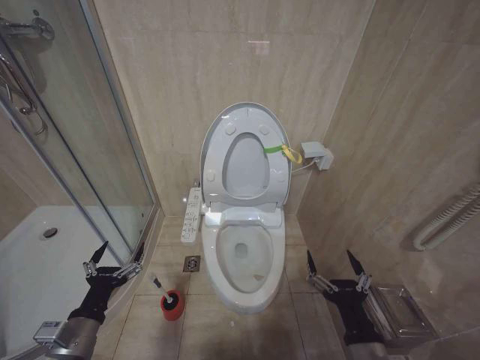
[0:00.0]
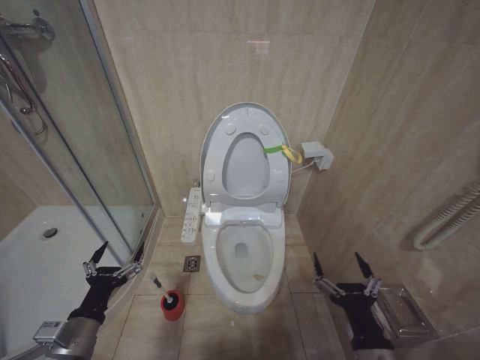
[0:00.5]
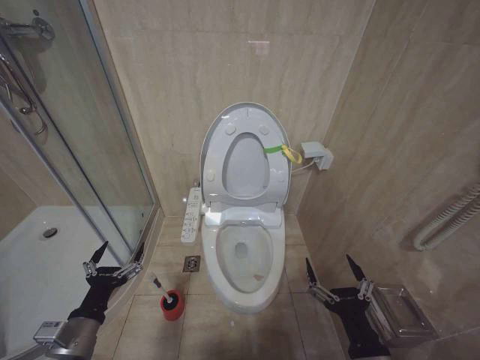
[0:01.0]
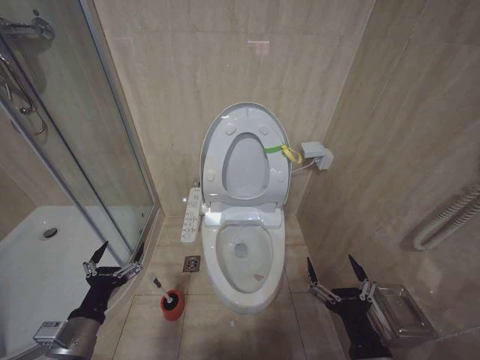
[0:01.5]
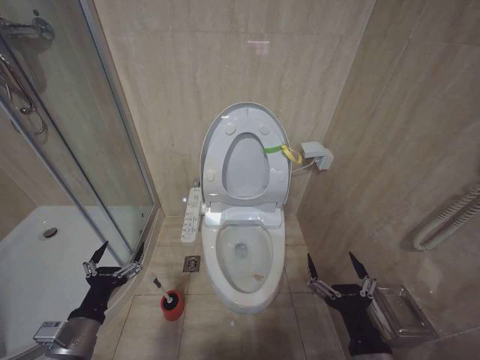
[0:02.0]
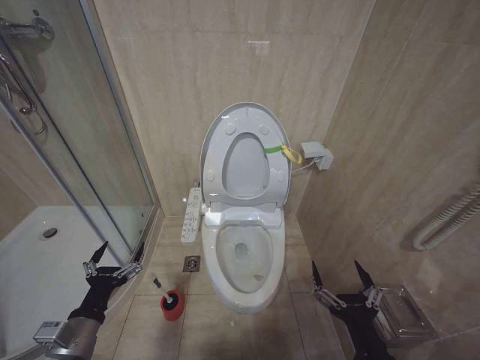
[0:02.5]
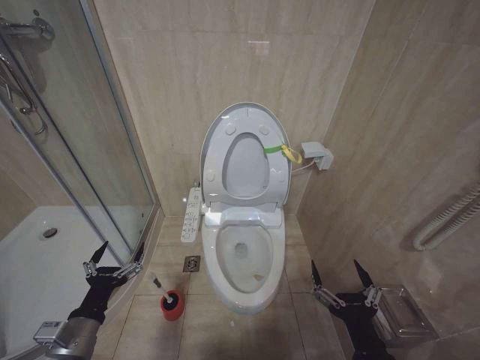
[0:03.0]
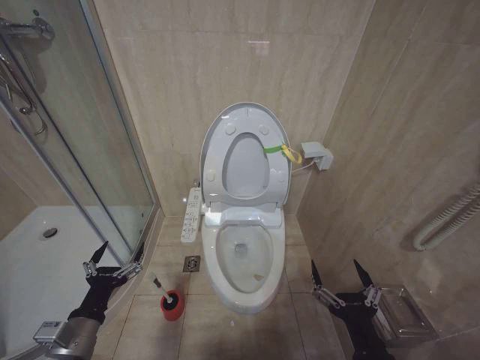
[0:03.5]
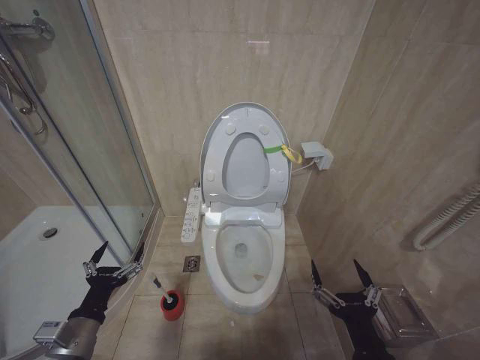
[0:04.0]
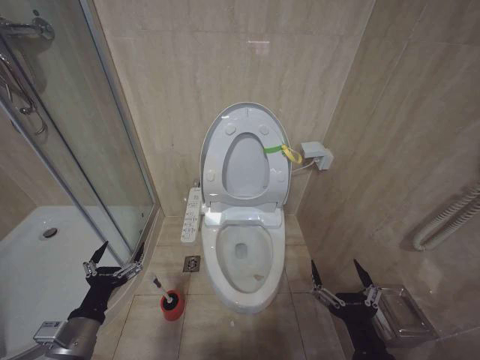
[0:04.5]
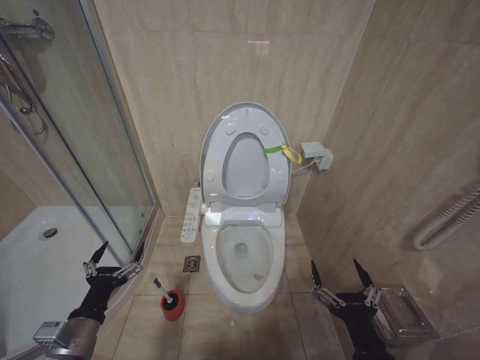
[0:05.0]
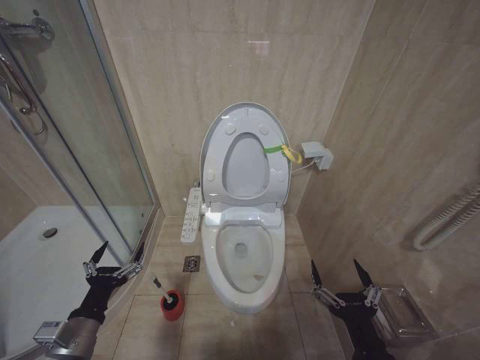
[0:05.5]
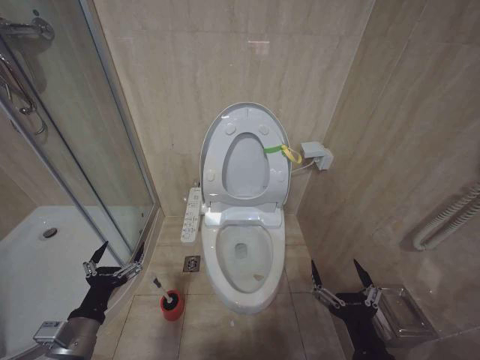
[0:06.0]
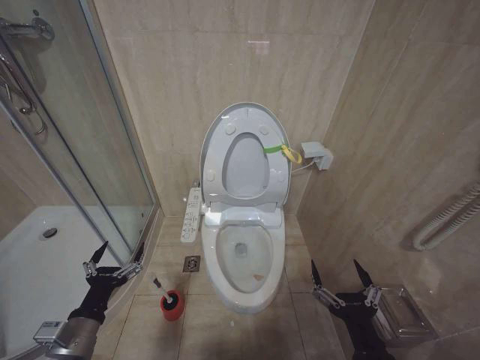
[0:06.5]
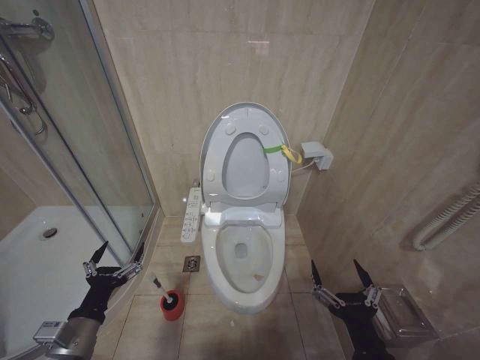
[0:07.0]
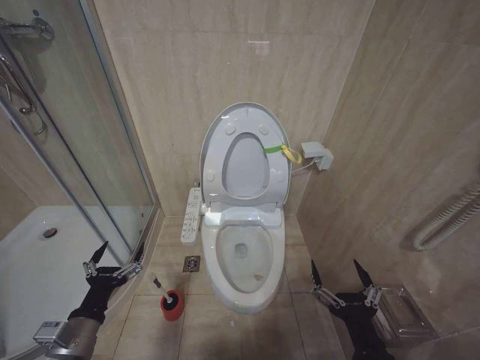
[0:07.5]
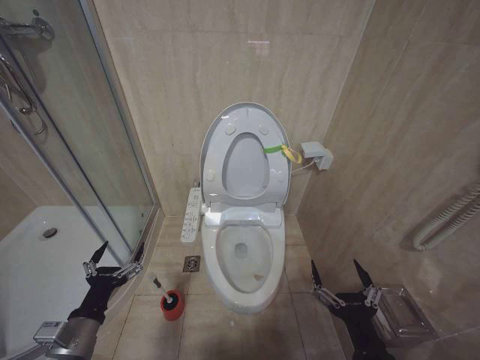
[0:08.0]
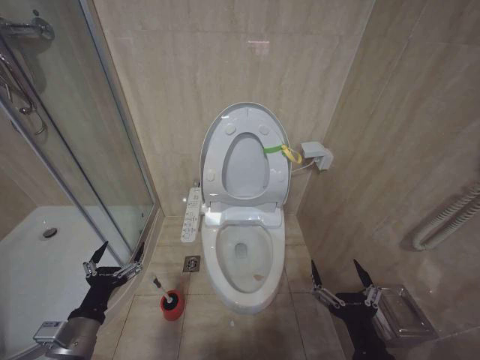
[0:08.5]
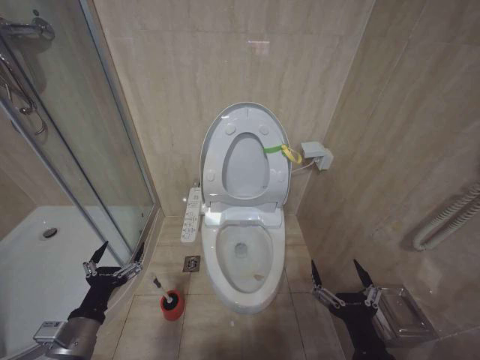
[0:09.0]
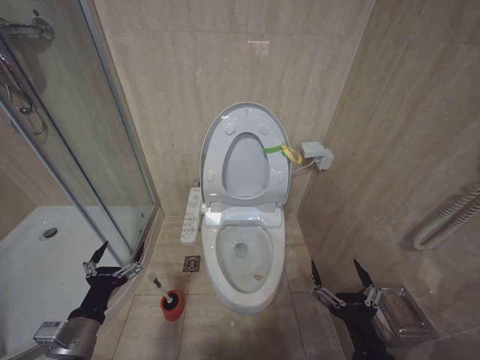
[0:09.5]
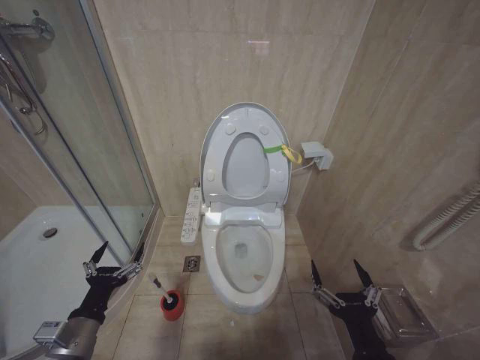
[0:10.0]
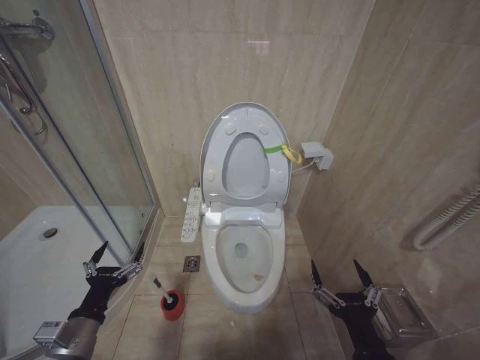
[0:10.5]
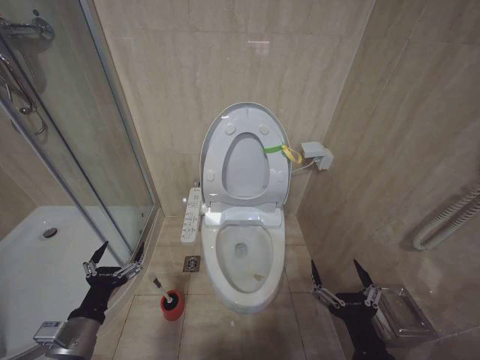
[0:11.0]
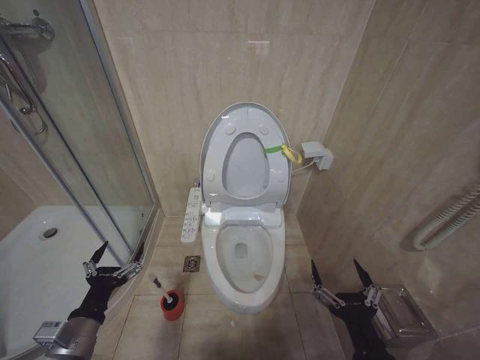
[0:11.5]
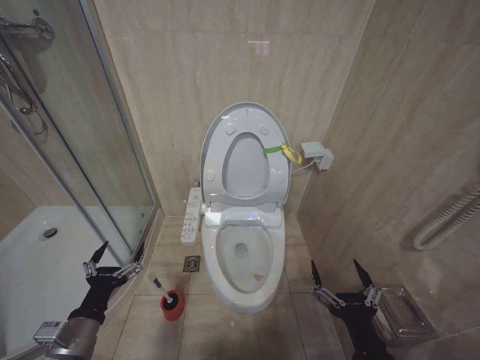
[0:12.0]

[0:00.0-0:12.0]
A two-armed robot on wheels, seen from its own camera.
Task of the whole recording: Open the toilet lid, clean the toilet bowl with a toilet brush, close the toilet lid, and flush.
0:04.0 to 0:12.0: Both grippers stay put.

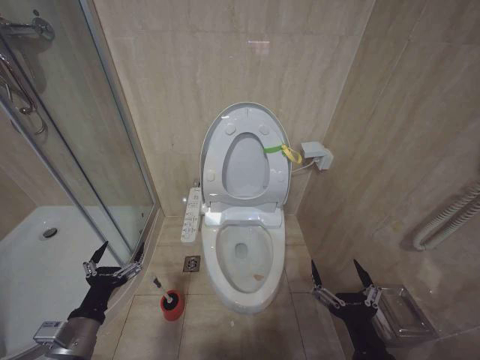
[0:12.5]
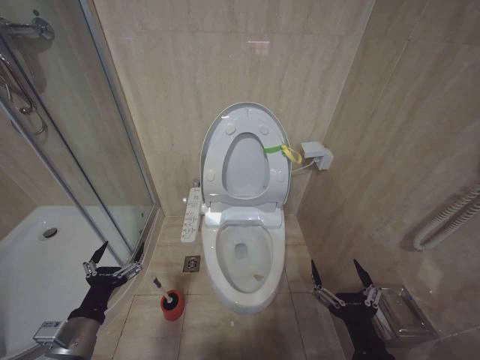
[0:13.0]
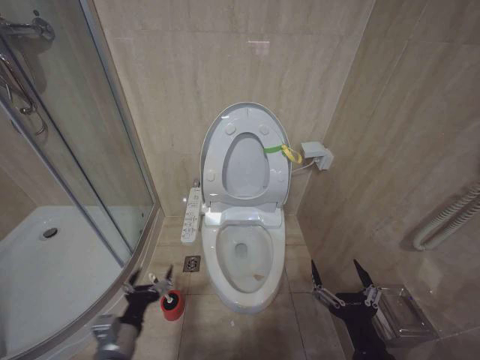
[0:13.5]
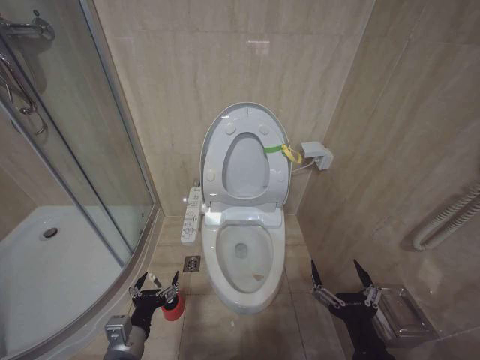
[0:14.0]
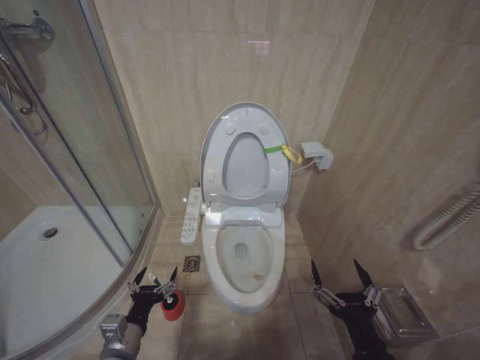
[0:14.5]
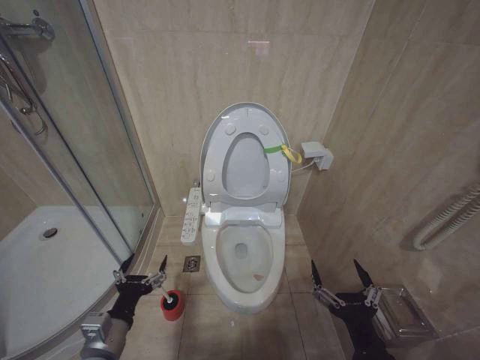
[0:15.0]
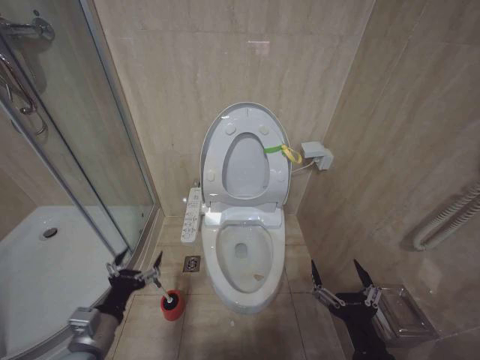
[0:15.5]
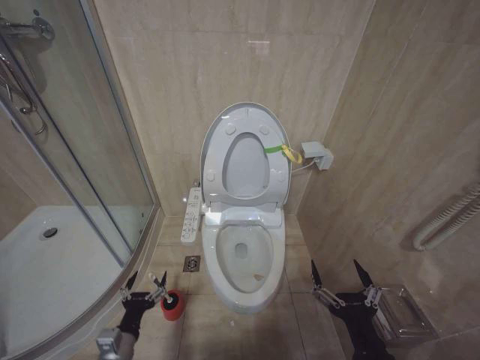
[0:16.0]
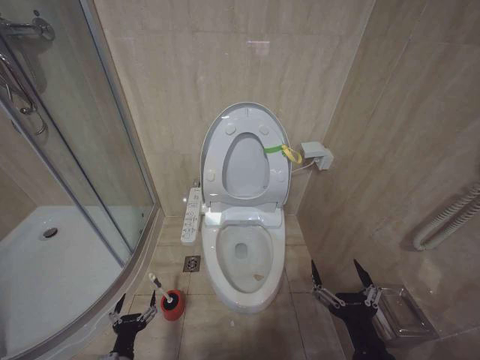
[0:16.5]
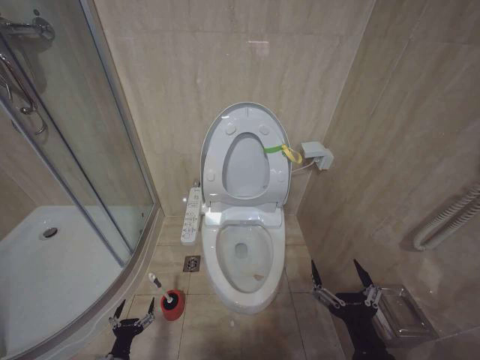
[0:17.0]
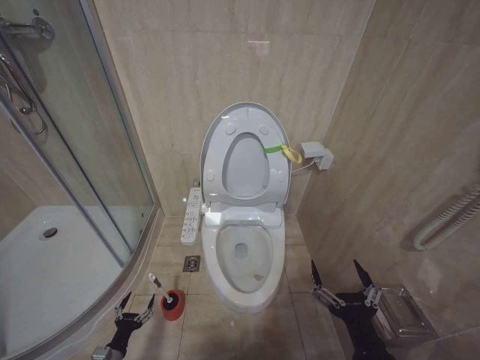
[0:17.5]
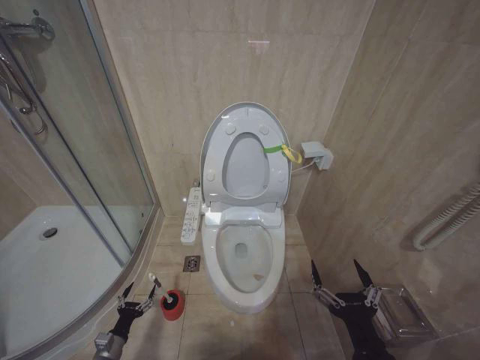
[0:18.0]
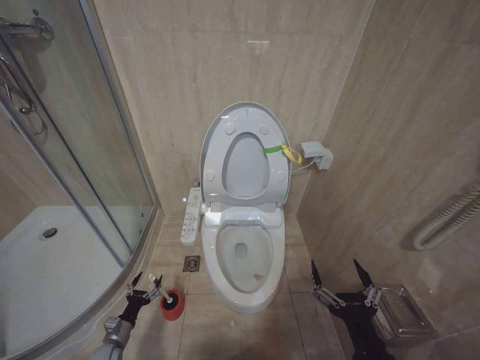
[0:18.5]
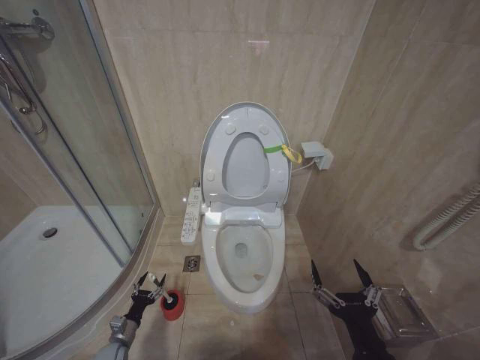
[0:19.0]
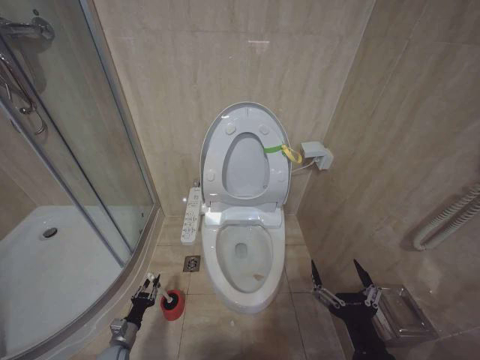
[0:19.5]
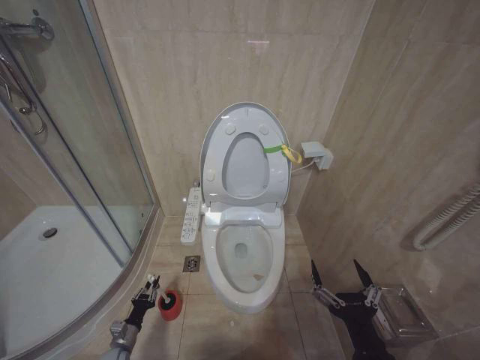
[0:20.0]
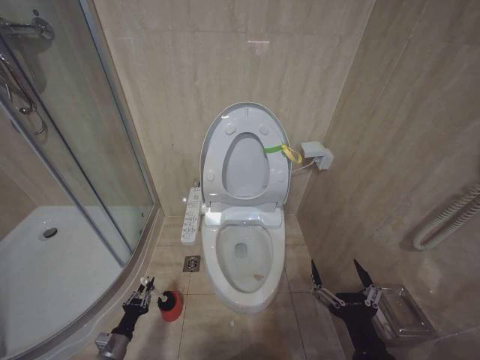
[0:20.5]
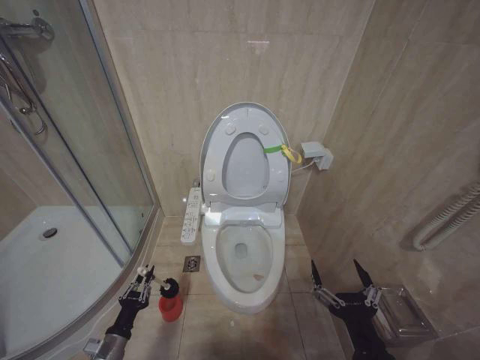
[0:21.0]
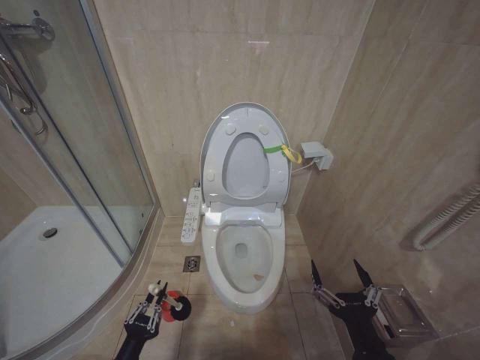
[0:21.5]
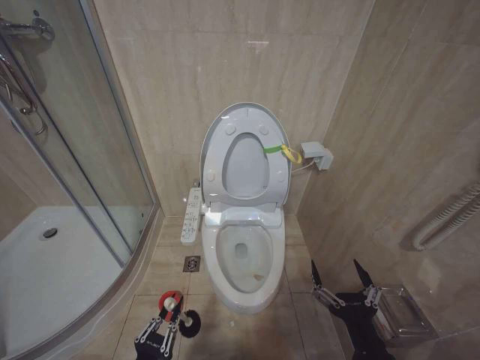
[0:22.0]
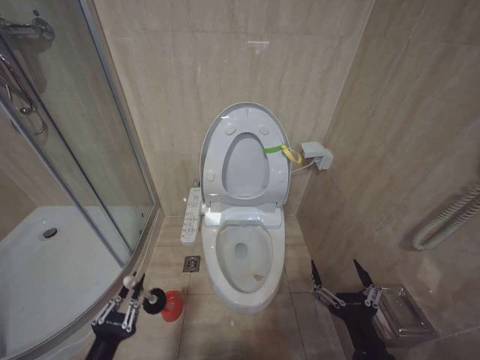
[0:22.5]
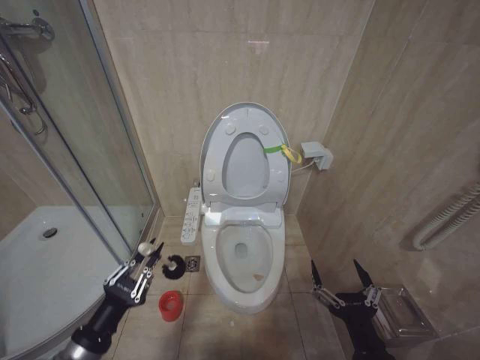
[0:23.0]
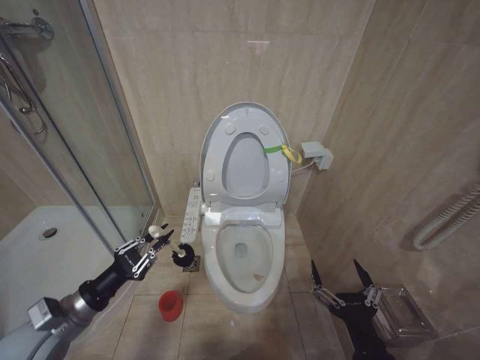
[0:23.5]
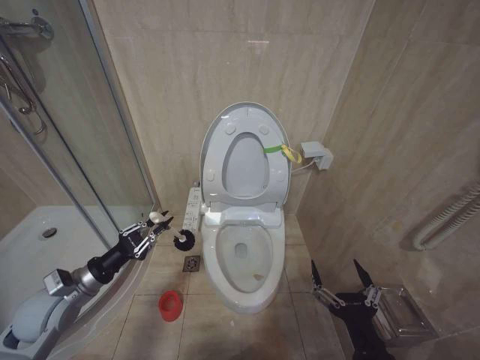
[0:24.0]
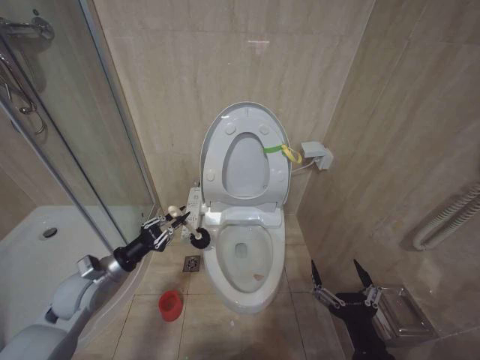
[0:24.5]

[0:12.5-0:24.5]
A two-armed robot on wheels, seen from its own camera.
Task of the whole recording: Open the toilet lid, clean the toilet bowl with a toilet brush, close the toilet lid, and flush.
0:12.5 to 0:14.5: The left gripper heads to the right, covering some 5 cm.
0:14.5 to 0:16.5: The left gripper goes about 10 cm downward.
0:16.5 to 0:18.5: The left gripper shifts about 20 cm downward, forward and to the left.
0:18.5 to 0:20.5: The left gripper closes up.
0:20.5 to 0:22.5: The left gripper shifts roughly 25 cm upward and backward.
0:22.5 to 0:24.5: The left gripper moves forward, roughly 25 cm.

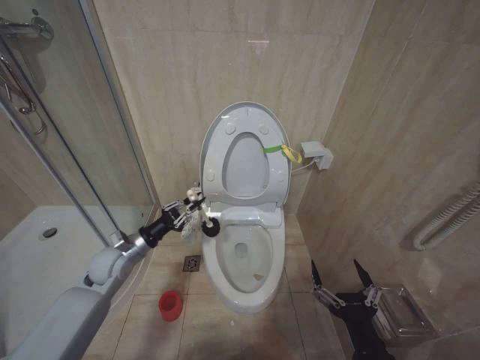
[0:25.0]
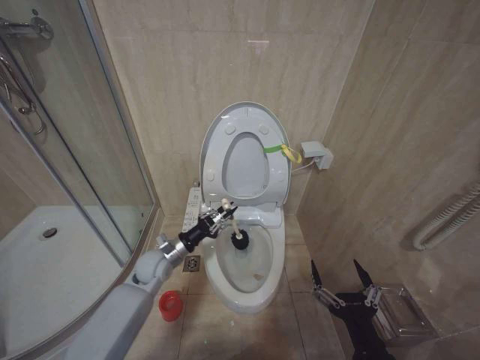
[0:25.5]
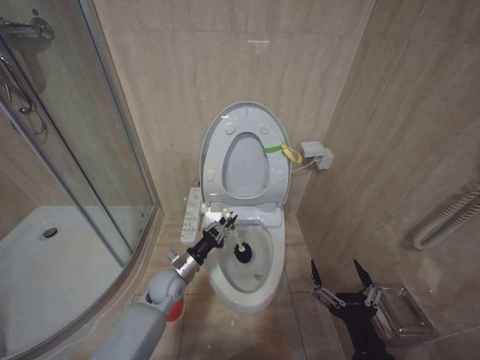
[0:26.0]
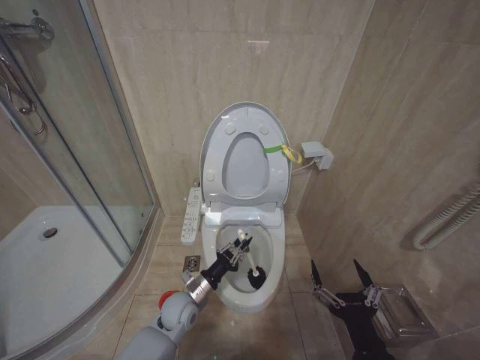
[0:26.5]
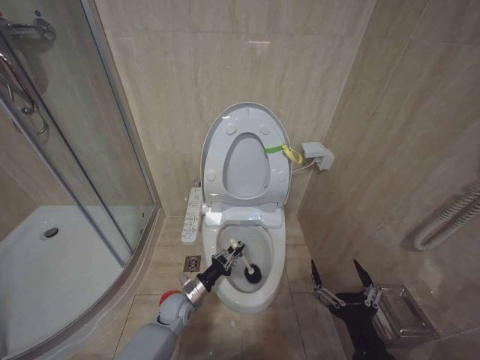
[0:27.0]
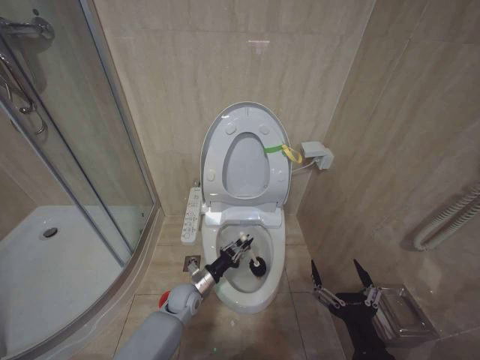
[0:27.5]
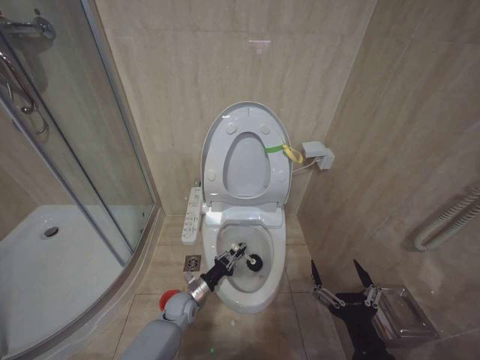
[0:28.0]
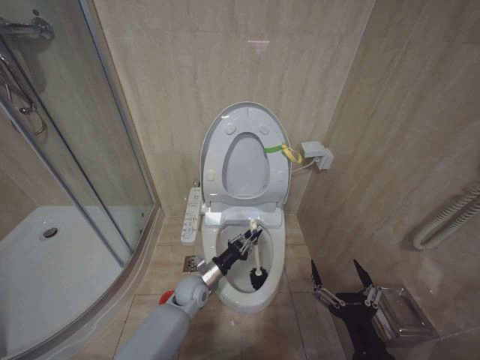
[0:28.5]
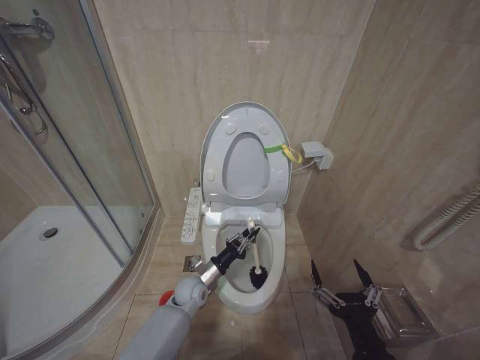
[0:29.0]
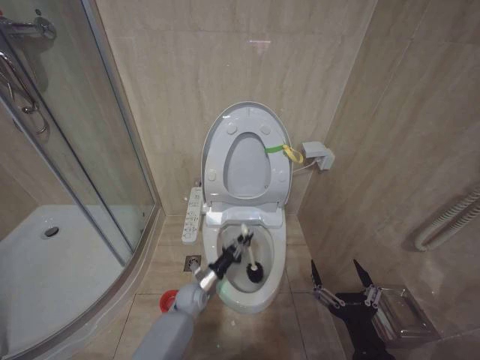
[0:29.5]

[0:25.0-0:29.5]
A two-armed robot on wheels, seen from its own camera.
Task of the whole recording: Open the toilet lid, clean the toilet bowl with a toilet brush, close the toilet lid, and flush.
0:25.0 to 0:27.0: The left gripper goes roughly 25 cm downward and to the right.
0:27.0 to 0:29.5: The left gripper shifts by about 5 cm.
